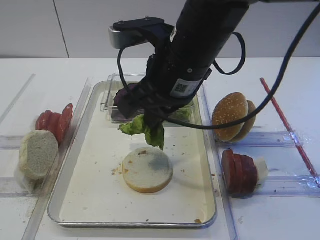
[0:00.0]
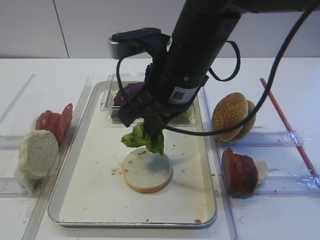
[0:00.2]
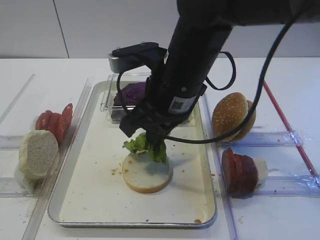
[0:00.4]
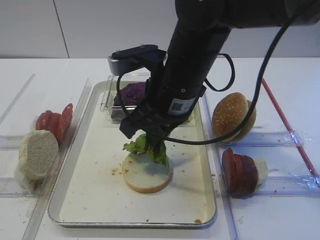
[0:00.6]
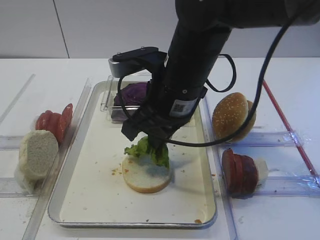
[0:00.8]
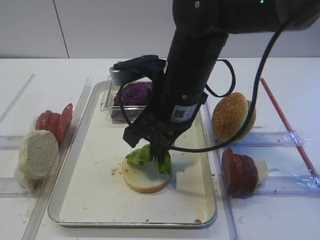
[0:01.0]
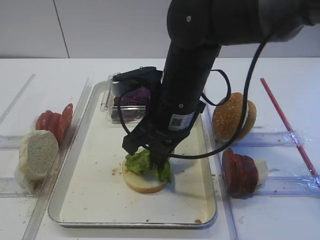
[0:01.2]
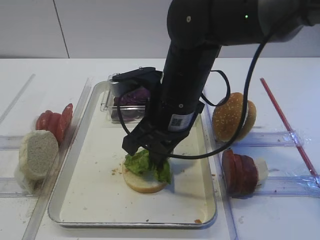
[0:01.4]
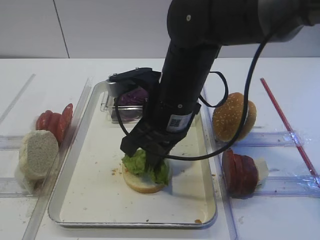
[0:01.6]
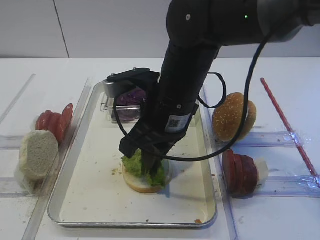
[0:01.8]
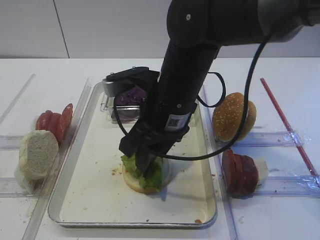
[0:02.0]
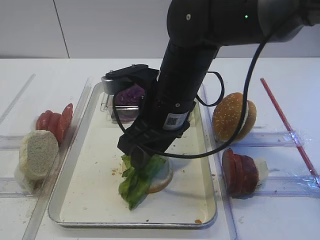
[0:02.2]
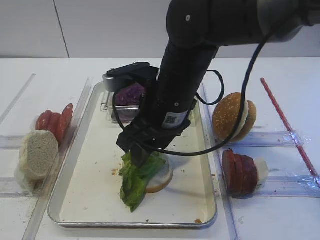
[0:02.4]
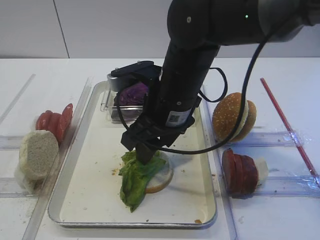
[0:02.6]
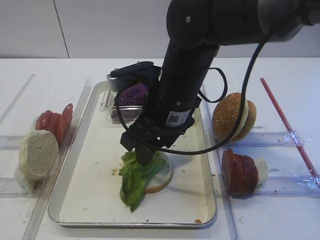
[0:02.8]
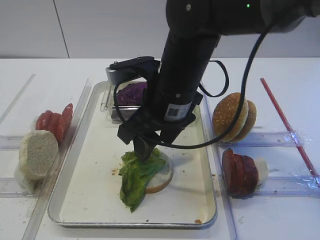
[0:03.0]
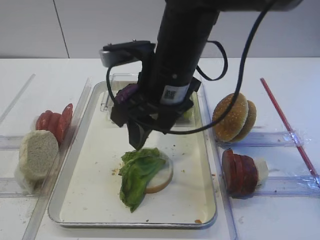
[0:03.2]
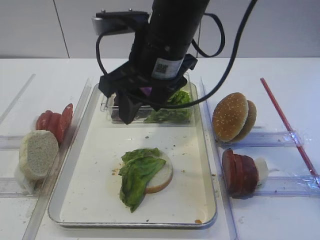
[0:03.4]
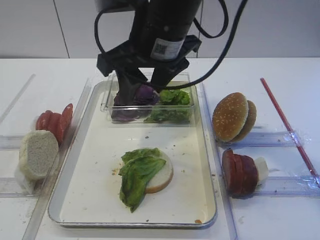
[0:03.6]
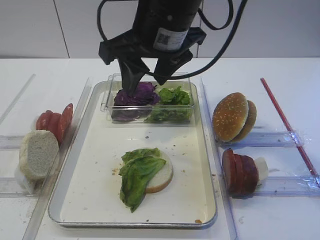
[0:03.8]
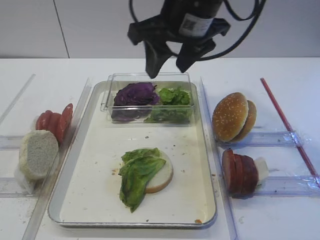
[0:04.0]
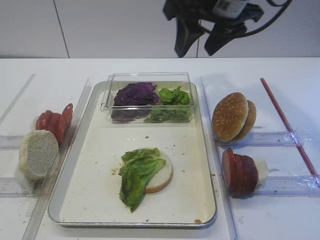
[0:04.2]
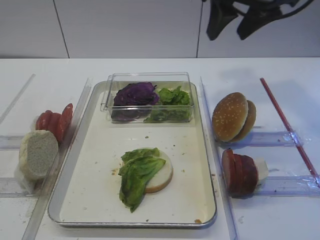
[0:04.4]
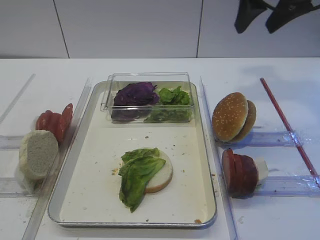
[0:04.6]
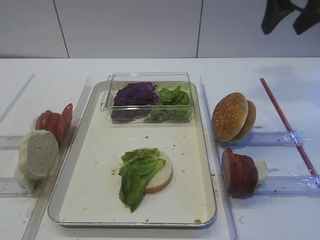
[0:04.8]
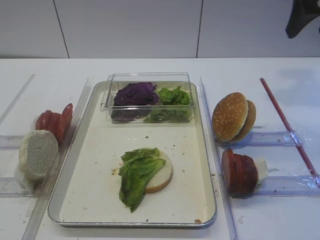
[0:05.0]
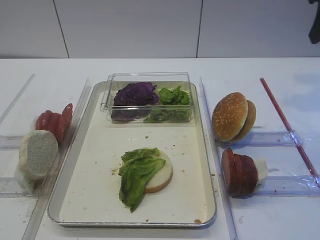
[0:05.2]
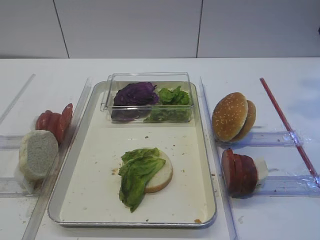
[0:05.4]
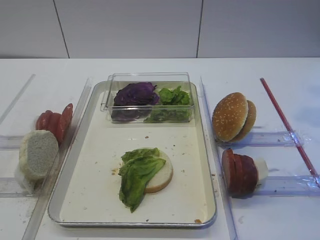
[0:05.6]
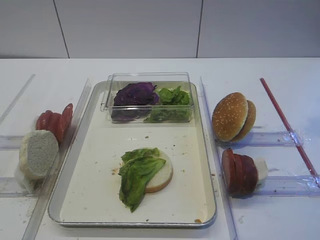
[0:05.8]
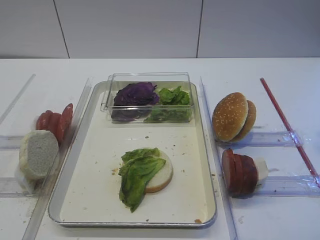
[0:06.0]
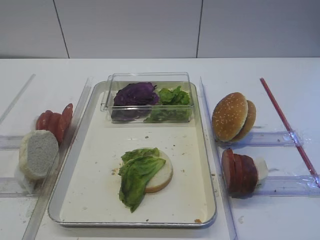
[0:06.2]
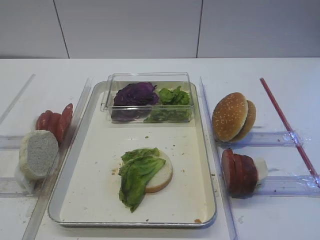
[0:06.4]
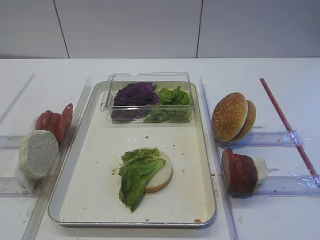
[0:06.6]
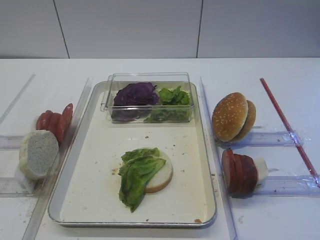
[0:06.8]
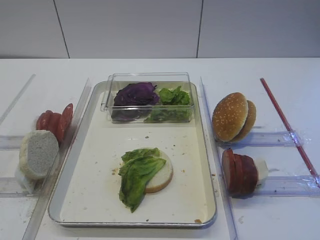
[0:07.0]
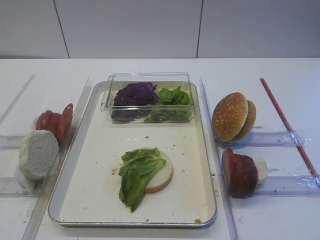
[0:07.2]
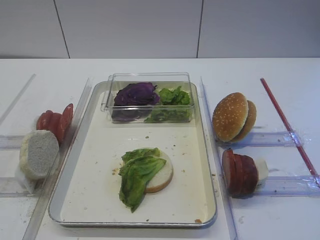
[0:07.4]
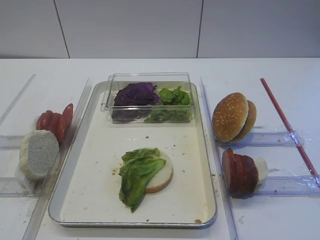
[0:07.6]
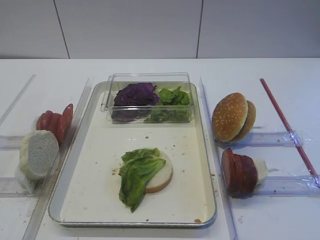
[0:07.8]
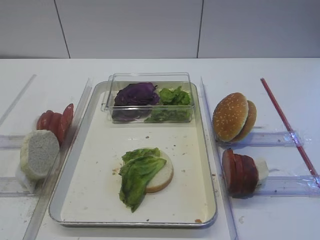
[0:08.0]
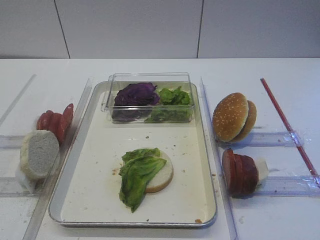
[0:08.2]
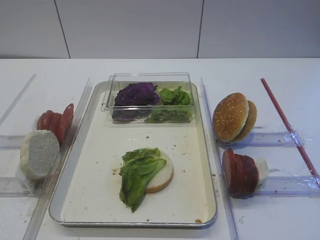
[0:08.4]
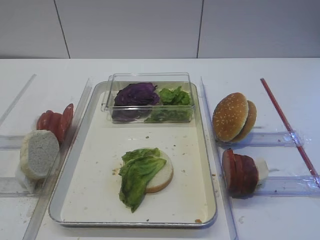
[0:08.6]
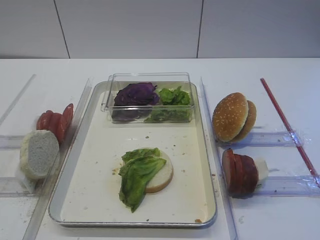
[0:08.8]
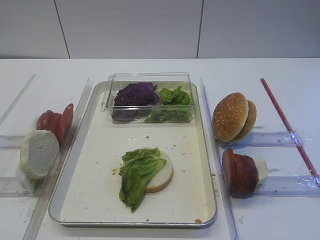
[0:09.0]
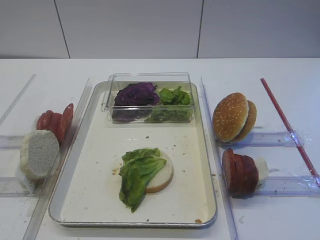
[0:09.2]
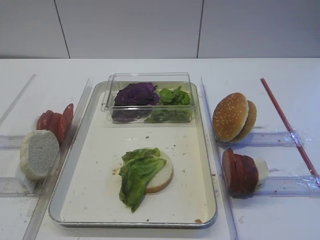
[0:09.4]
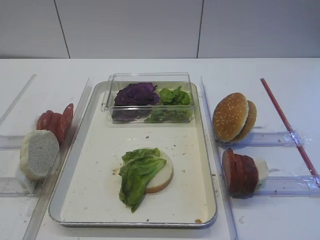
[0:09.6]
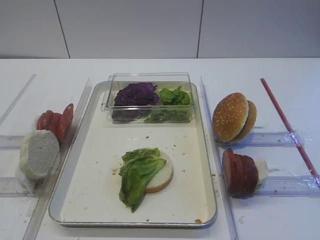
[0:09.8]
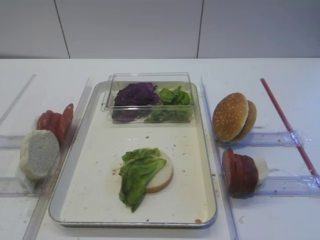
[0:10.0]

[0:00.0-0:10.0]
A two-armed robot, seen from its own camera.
0:00.0 to 0:01.4: The right gripper moves downward, approximately 5 cm.
0:01.4 to 0:02.8: The right gripper opens its fingers.
0:02.8 to 0:04.2: The right gripper is displaced upward, to the right and forward by about 15 cm.
0:04.2 to 0:05.8: The right gripper travels to the right and backward by some 20 cm.
0:08.6 to 0:10.0: The two grippers keep their place.

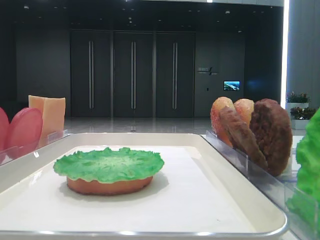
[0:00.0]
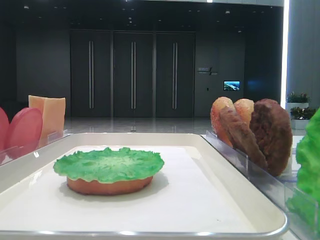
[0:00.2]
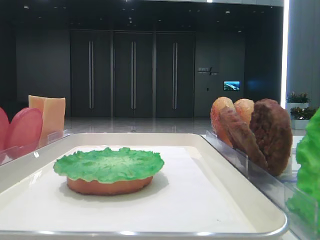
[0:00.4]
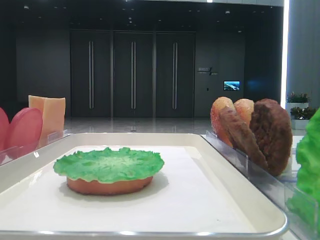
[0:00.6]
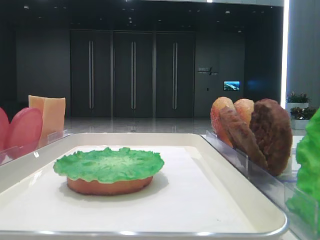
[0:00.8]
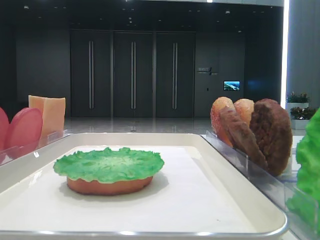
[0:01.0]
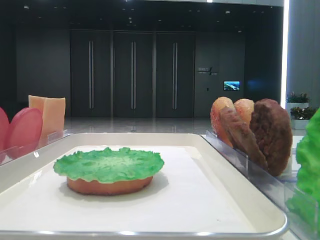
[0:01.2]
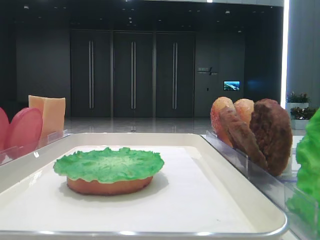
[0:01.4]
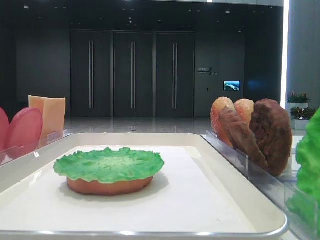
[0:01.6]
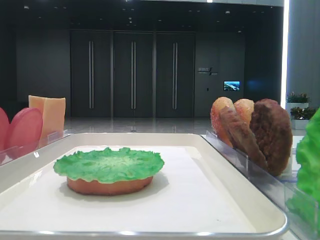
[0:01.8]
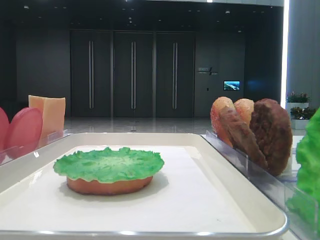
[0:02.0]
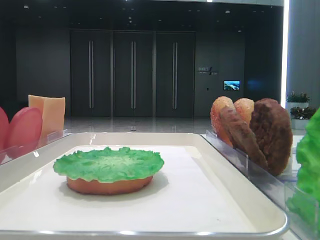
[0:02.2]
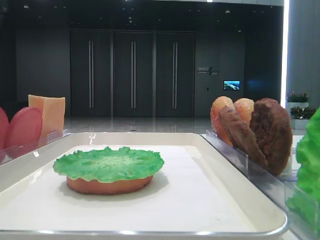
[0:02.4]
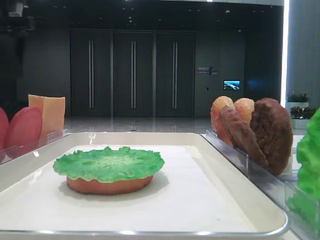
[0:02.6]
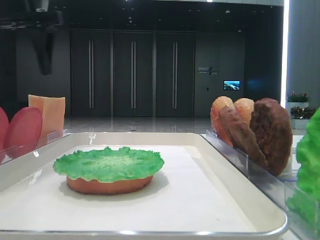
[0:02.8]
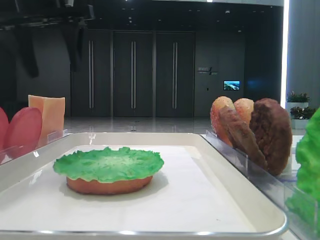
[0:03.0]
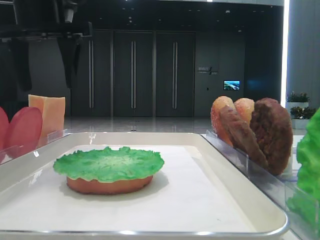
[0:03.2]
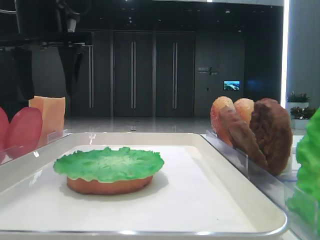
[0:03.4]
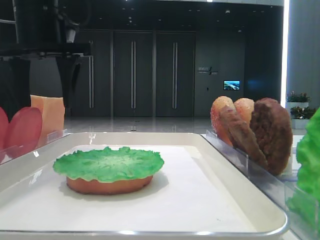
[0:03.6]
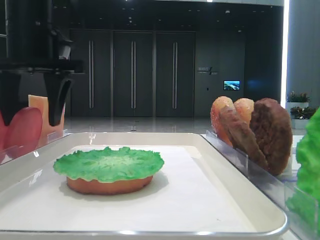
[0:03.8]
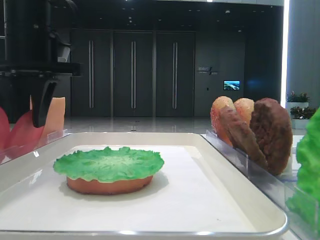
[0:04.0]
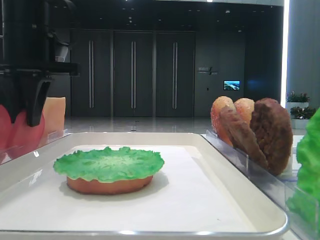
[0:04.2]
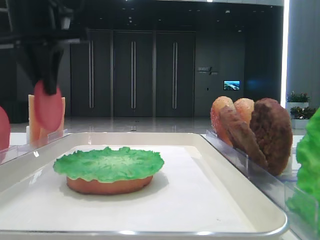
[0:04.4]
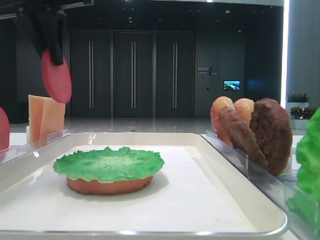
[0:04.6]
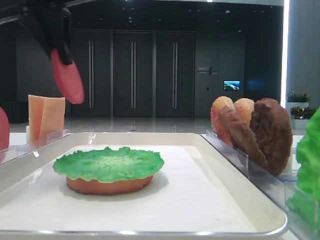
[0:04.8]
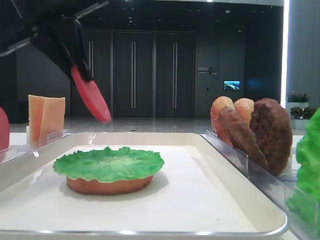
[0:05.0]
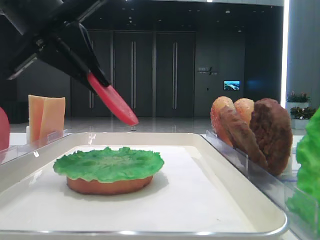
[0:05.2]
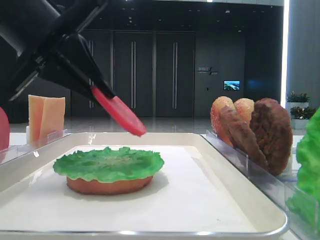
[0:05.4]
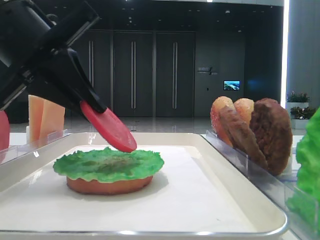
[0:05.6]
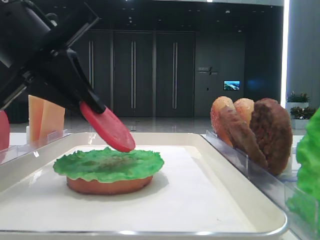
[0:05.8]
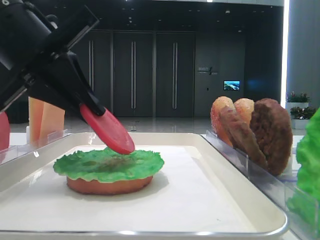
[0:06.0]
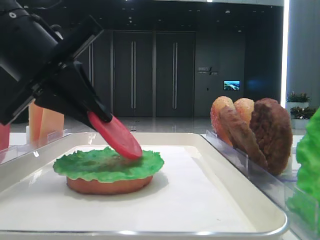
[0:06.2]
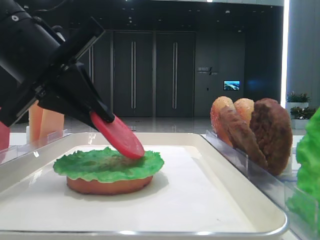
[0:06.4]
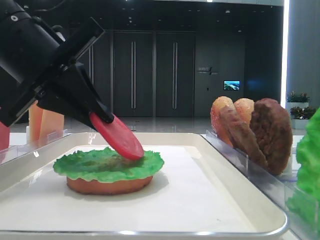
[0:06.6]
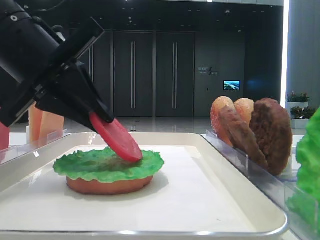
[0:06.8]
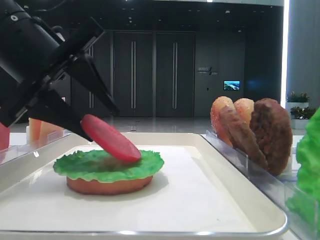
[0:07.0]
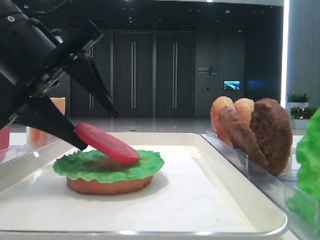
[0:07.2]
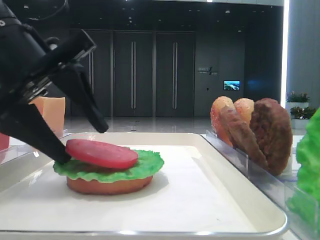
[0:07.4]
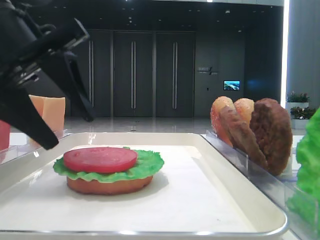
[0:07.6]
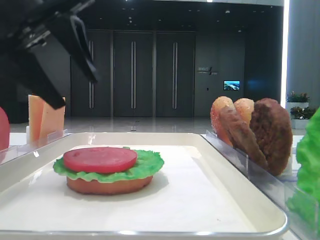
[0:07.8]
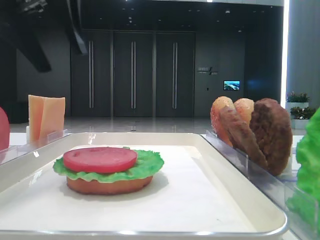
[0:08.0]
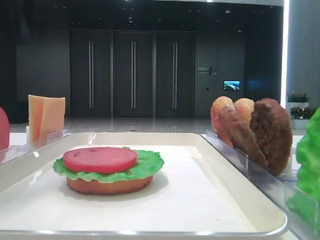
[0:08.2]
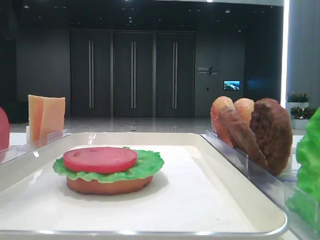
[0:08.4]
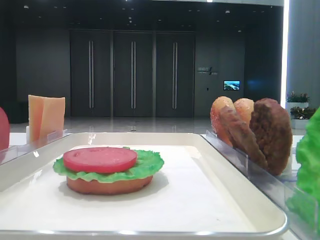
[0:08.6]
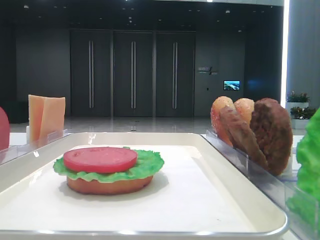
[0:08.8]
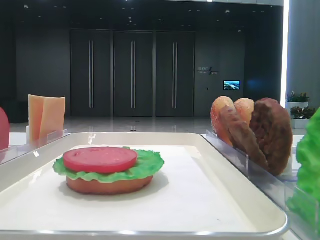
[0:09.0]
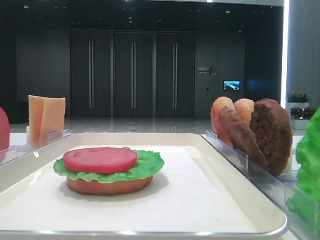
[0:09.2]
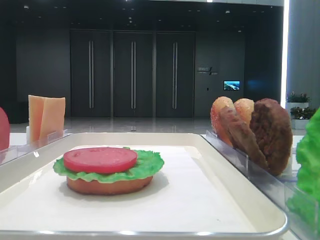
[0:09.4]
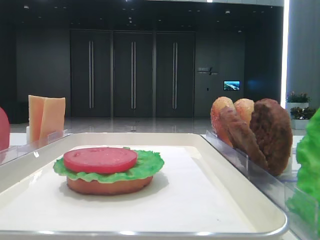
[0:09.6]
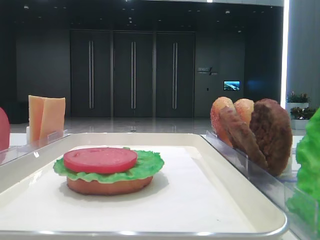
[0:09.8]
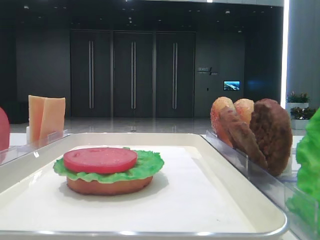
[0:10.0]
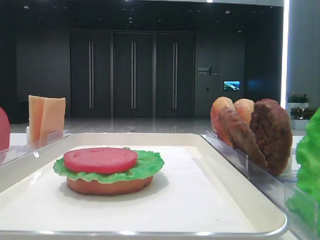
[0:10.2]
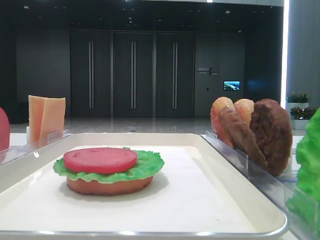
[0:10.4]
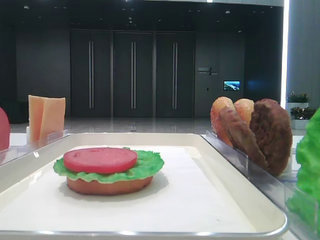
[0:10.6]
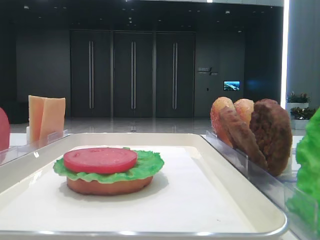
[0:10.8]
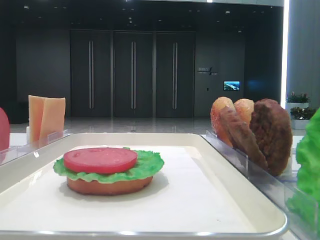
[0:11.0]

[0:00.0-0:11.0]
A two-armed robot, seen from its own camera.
Step, 0:00.0 to 0:04.0: Pick up the tomato slice with the left hand.
Step, 0:04.2 to 0:07.4: Place the tomato slice on the lettuce leaf with the left hand.
0:01.6 to 0:03.2: The left gripper heads forward and to the right, covering some 40 cm.
0:03.2 to 0:04.8: The left gripper travels downward and back again, roughly 5 cm each way, and closes.
0:04.8 to 0:06.2: The left gripper moves downward and backward, about 15 cm.
0:06.2 to 0:07.8: The left gripper heads upward, covering approximately 5 cm, and opens.
0:07.8 to 0:09.4: The left gripper heads to the left and backward, covering about 20 cm.
